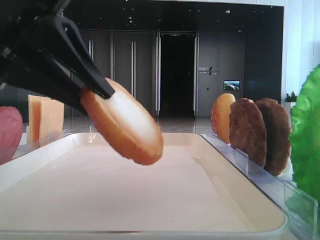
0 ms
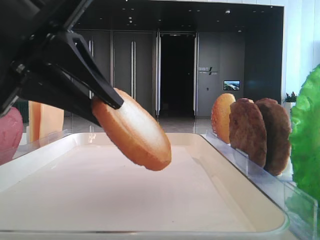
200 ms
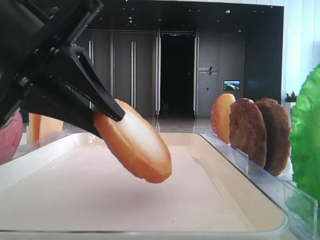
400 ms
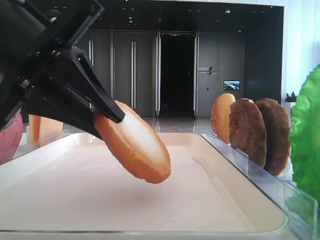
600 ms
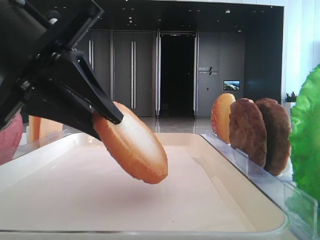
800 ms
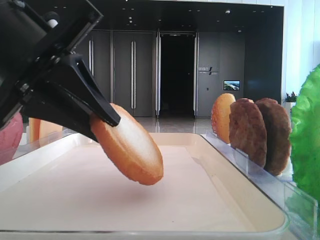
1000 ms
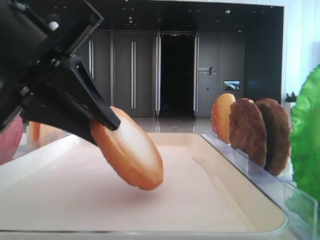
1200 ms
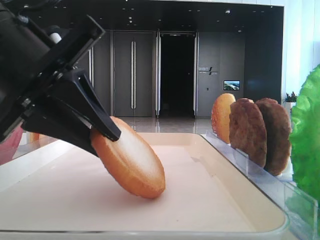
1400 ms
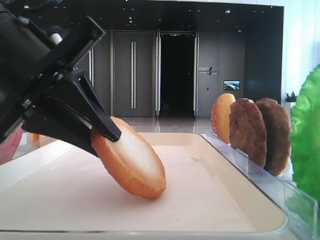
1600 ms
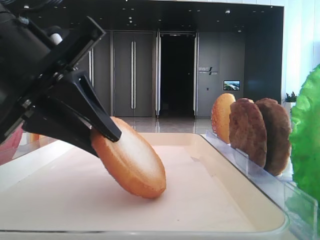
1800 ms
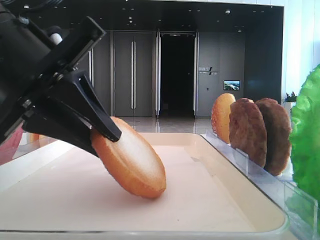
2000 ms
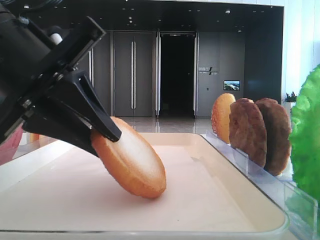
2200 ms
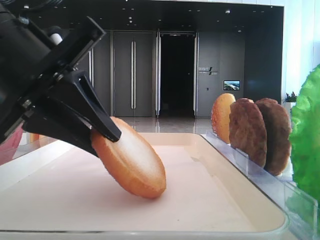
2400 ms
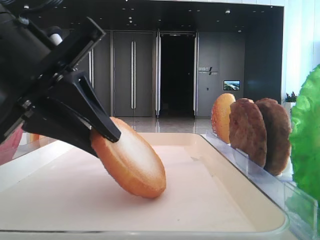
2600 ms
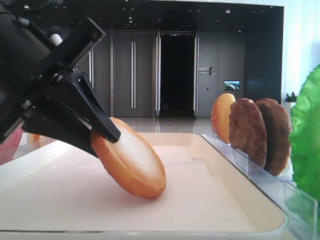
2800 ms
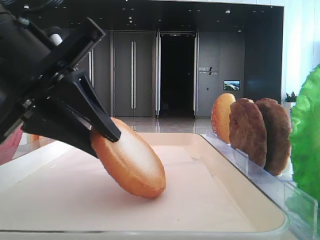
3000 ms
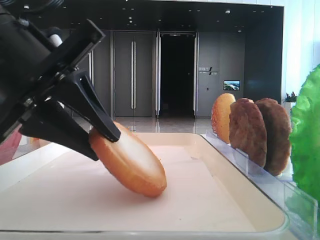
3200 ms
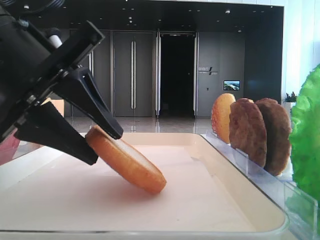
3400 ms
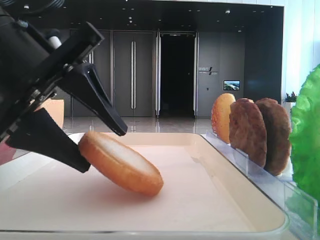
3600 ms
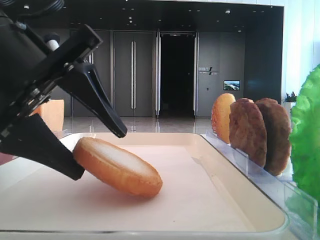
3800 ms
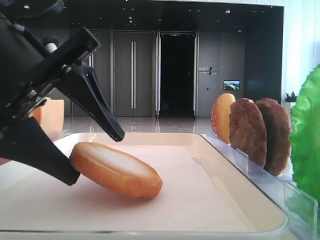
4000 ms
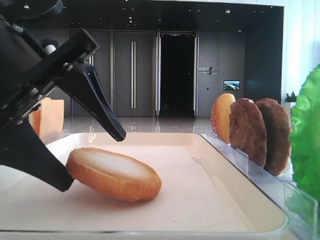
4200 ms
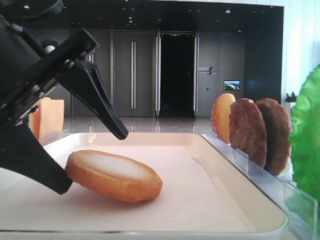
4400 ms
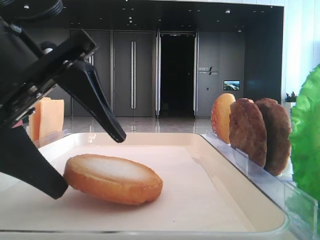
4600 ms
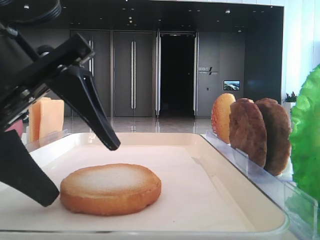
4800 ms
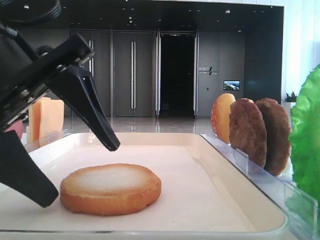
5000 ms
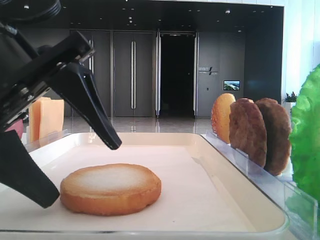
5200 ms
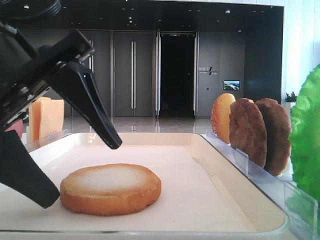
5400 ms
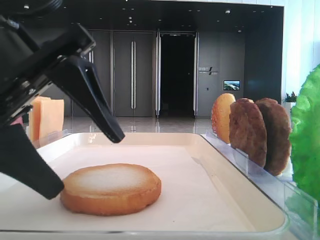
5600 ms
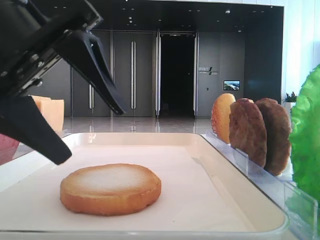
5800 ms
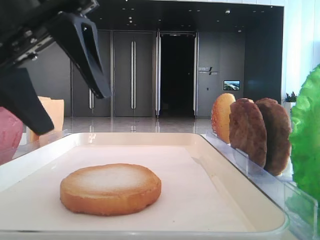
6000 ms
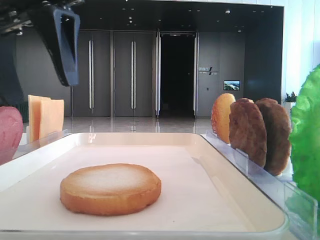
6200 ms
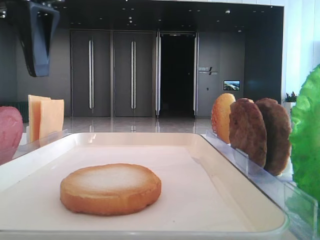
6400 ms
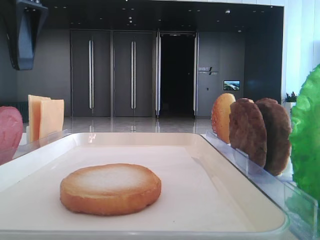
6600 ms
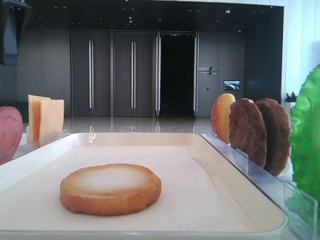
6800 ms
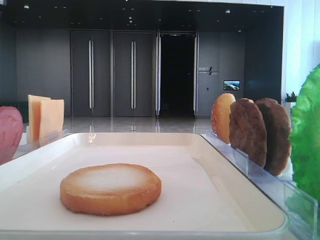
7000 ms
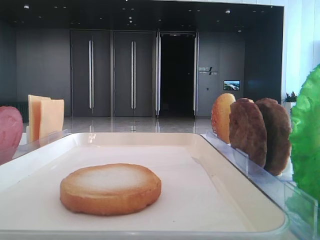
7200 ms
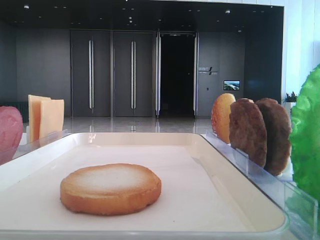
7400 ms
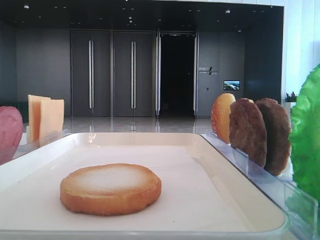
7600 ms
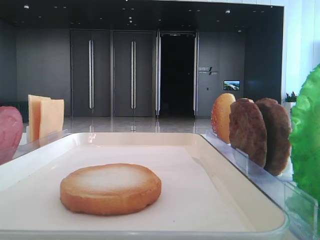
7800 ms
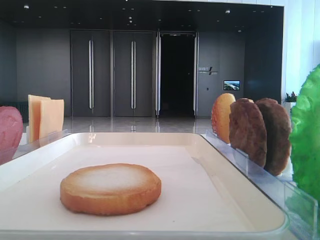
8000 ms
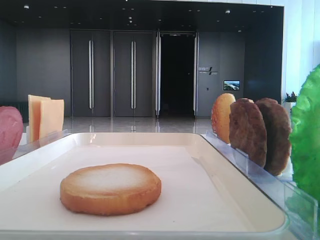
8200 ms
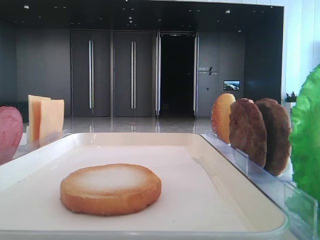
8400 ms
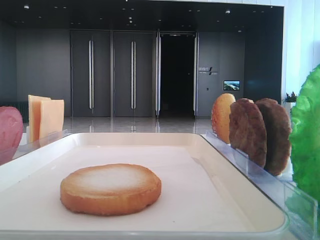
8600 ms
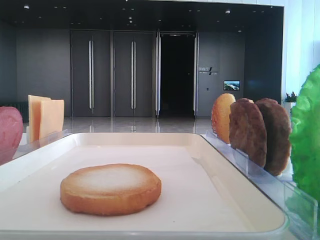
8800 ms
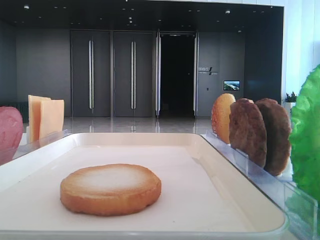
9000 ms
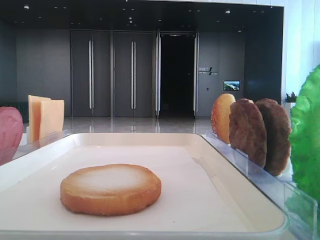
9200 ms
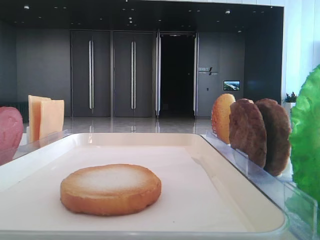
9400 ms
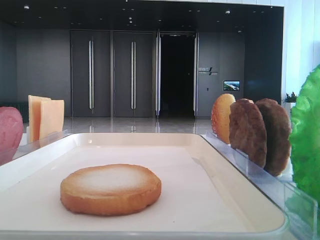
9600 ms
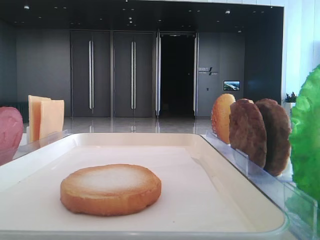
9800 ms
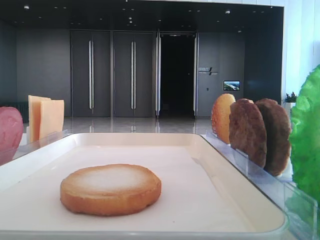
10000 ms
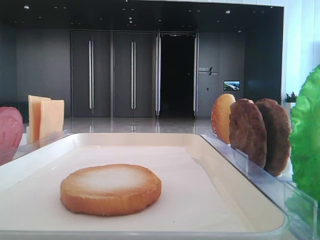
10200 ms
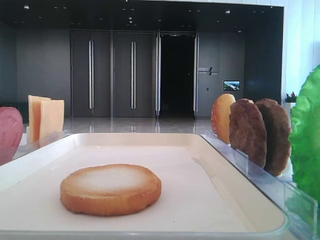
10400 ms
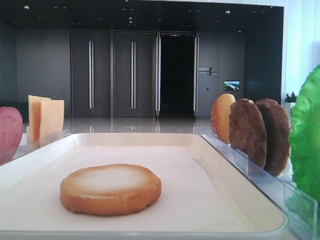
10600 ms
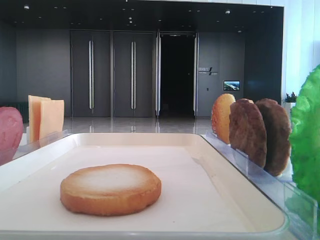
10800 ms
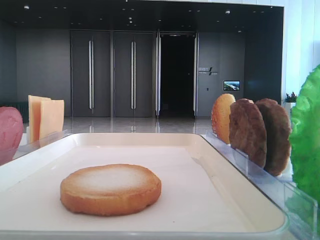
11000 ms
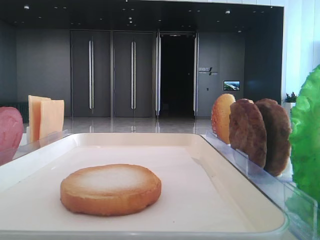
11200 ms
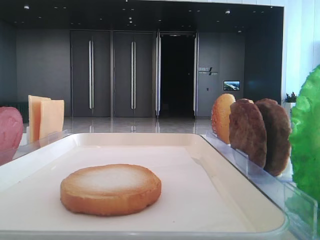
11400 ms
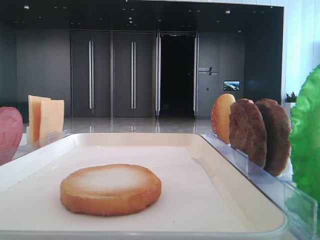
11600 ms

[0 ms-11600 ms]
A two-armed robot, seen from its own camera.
Step, 0 ms to 4800 ms: Place the bread on the tray with the left hand.
0 ms to 1400 ms: There are only small adjustments of the grippers.
1400 ms to 2800 ms: Neither gripper changes place.
2800 ms to 4400 ms: The left gripper opens.
4400 ms to 5800 ms: The grippers move only a little.
5800 ms to 7200 ms: The left gripper shifts about 20 cm to the left, upward and forward.

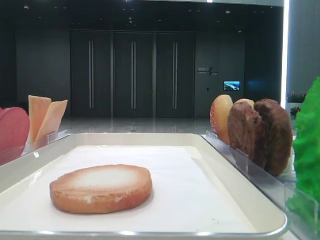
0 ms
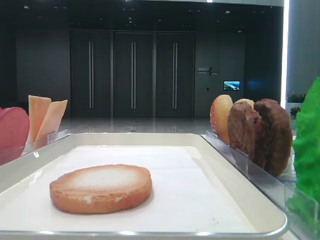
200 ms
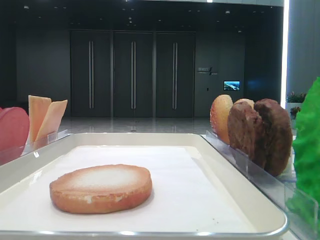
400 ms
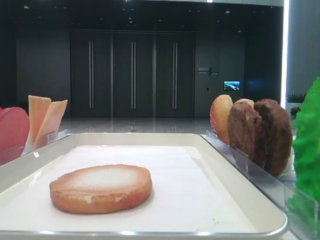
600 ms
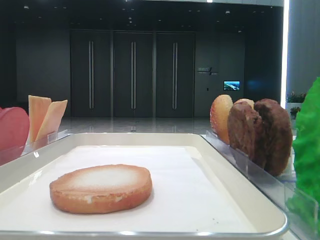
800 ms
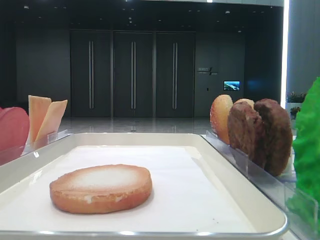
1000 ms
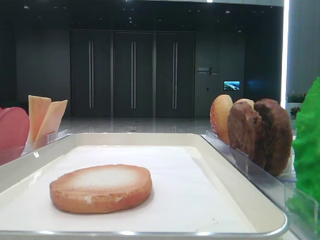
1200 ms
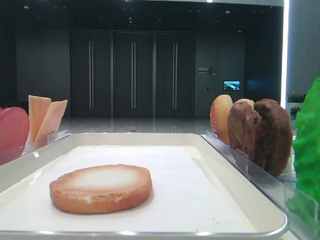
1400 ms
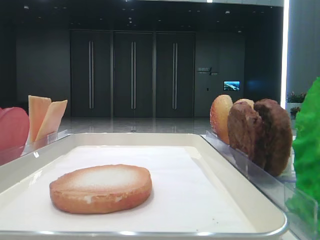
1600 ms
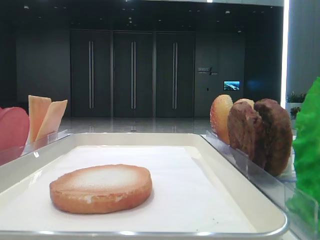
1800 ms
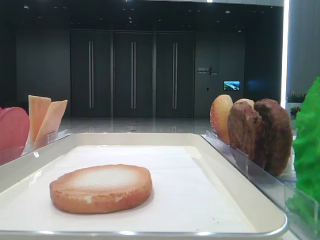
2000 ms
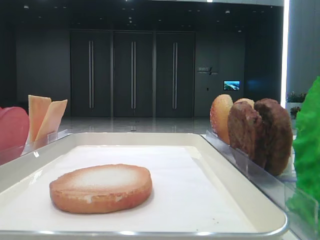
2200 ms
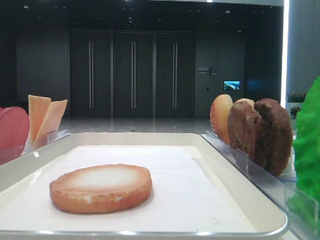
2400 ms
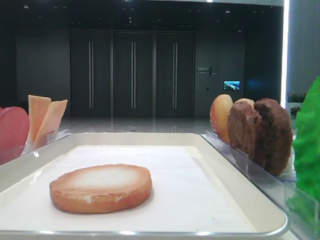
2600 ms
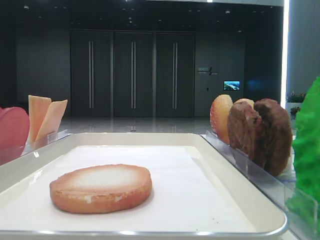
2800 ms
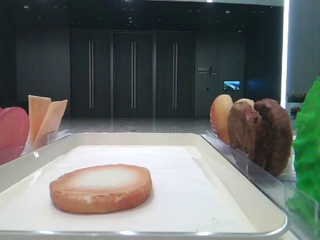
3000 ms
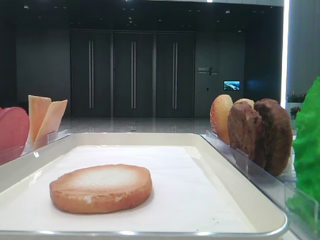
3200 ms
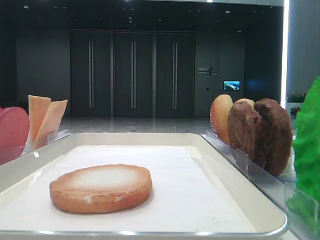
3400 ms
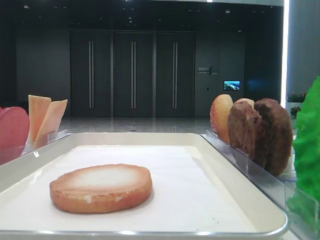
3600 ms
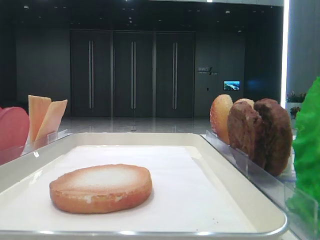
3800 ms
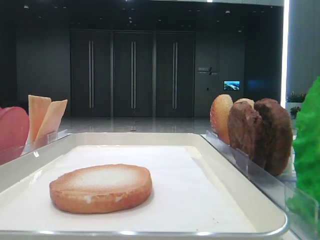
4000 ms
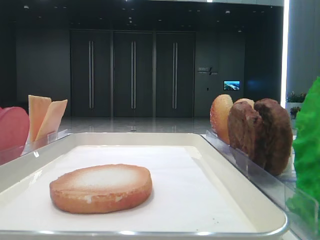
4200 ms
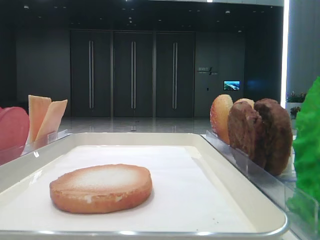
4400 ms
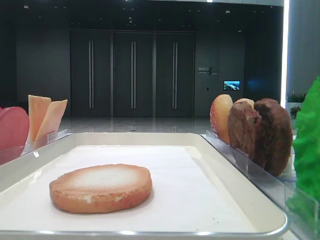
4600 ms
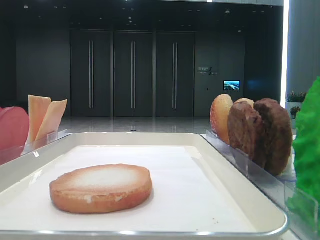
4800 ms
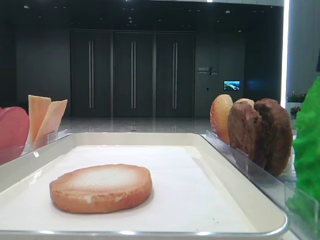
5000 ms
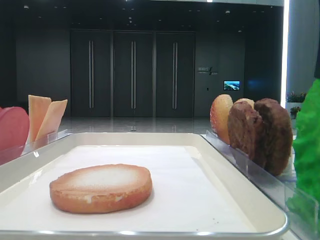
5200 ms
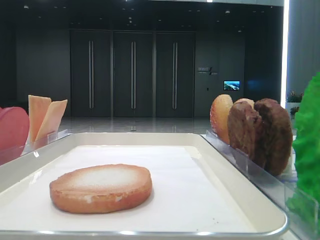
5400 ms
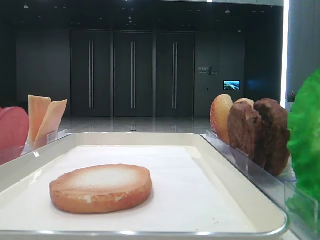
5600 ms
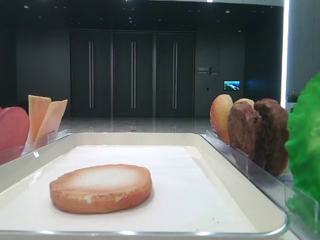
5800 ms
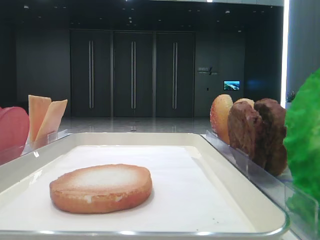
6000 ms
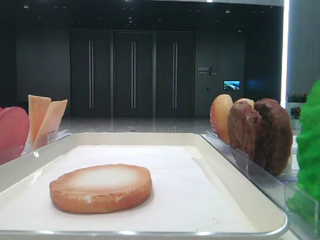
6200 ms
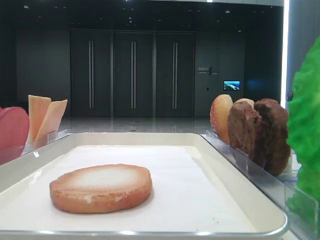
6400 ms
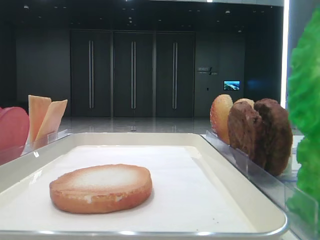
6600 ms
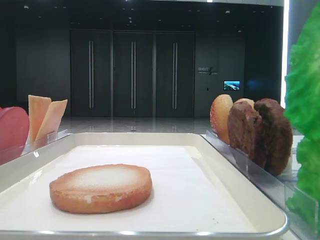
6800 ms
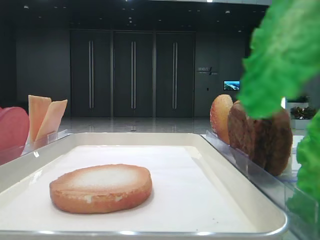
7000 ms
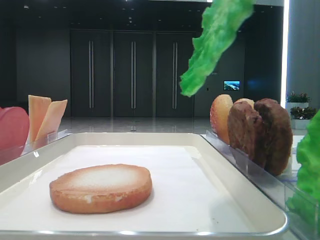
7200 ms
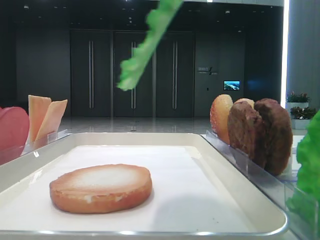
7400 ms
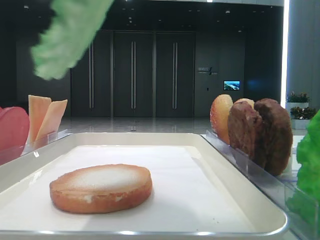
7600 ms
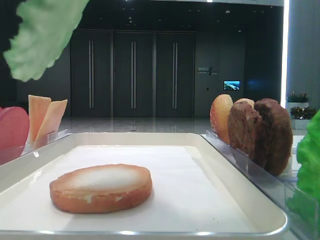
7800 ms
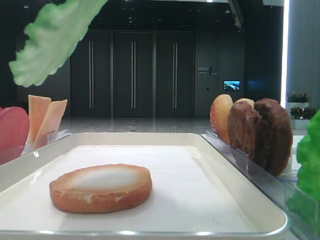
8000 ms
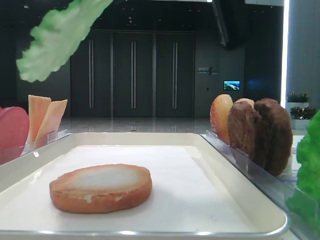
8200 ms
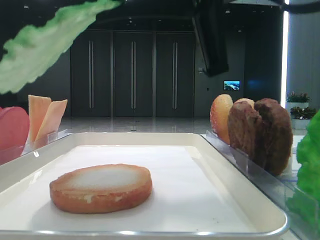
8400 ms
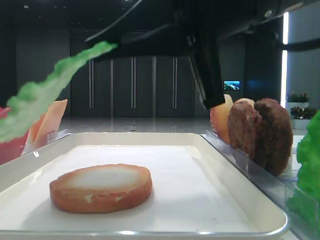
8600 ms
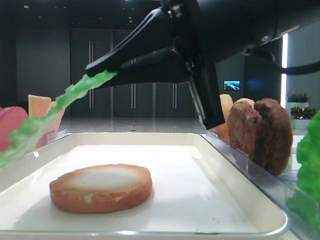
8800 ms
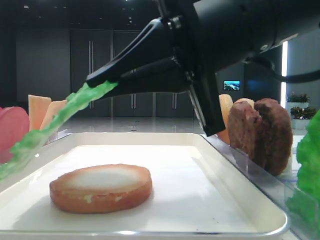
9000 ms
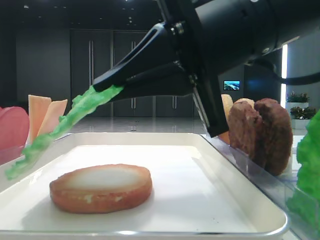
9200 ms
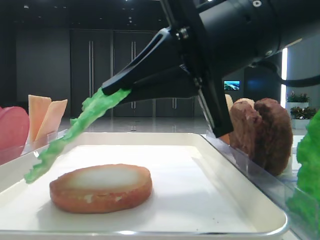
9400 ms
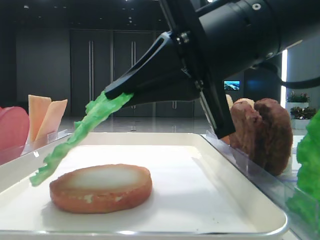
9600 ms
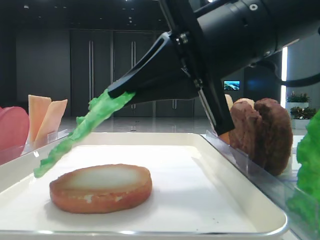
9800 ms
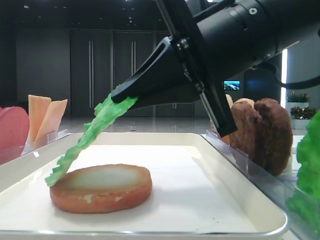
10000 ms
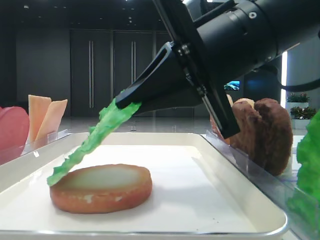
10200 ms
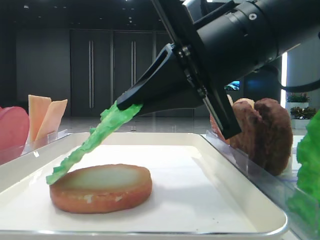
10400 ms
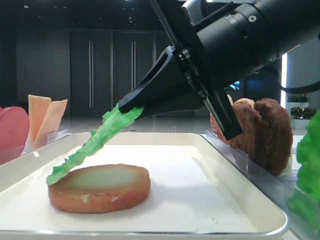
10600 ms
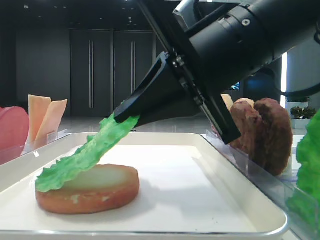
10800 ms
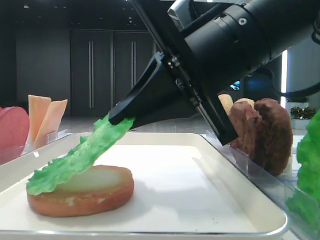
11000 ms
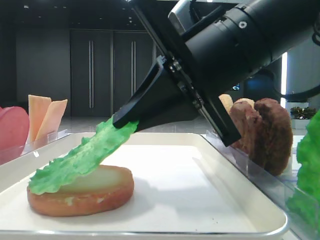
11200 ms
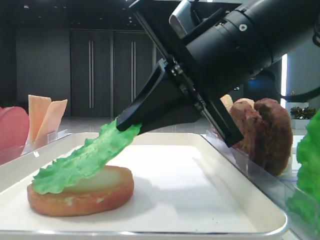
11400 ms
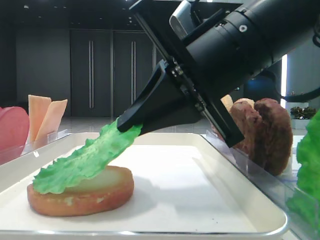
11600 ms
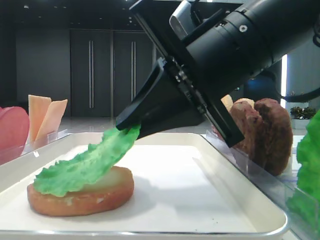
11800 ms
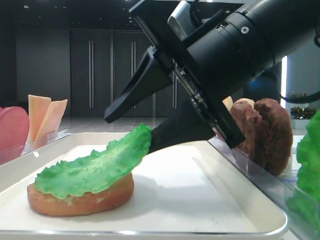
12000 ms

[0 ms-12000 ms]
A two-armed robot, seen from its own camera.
4400 ms to 6000 ms: The right gripper closes.
6000 ms to 7600 ms: The right gripper is displaced to the left by about 10 cm.
7600 ms to 9000 ms: The right gripper travels downward and forward by some 15 cm.
10400 ms to 12000 ms: The right gripper opens its fingers.
